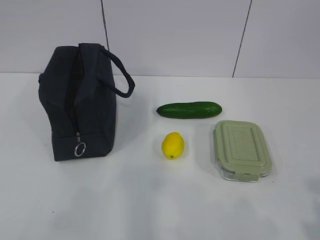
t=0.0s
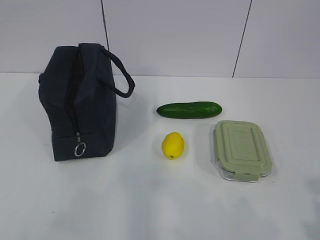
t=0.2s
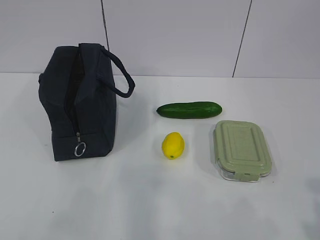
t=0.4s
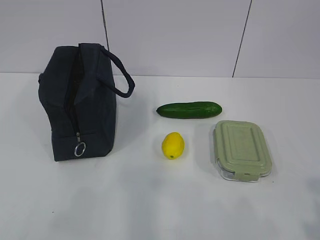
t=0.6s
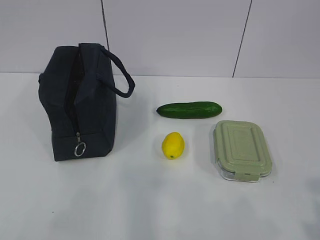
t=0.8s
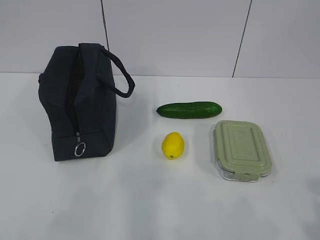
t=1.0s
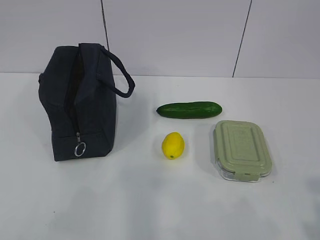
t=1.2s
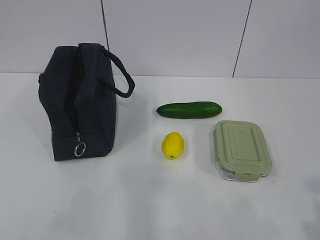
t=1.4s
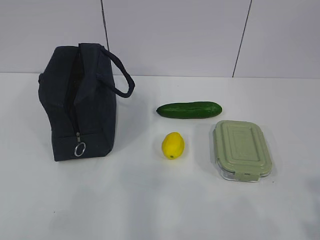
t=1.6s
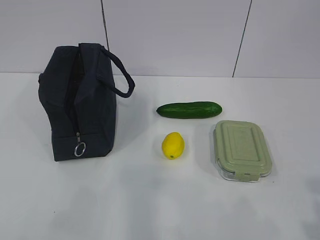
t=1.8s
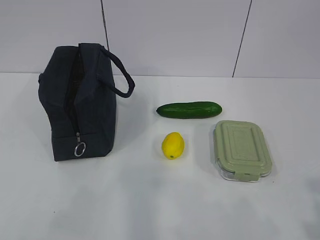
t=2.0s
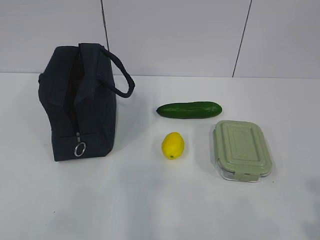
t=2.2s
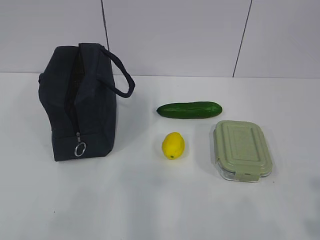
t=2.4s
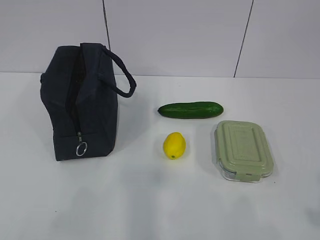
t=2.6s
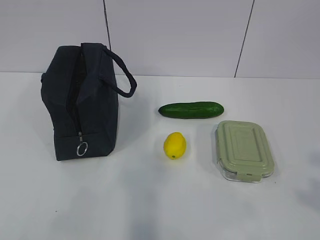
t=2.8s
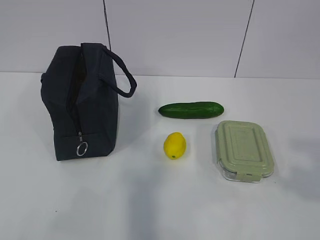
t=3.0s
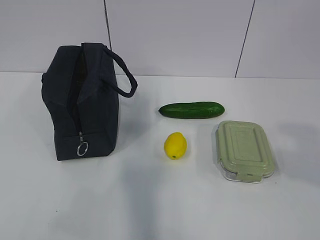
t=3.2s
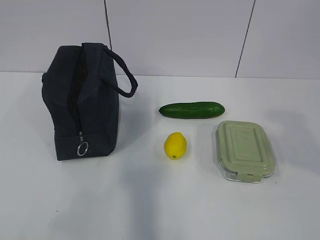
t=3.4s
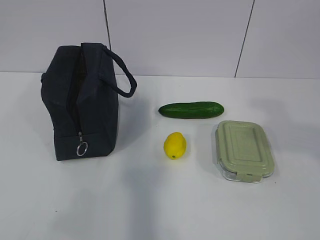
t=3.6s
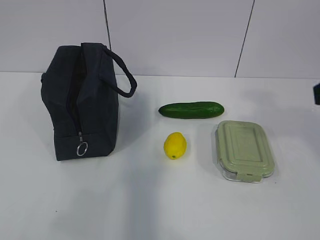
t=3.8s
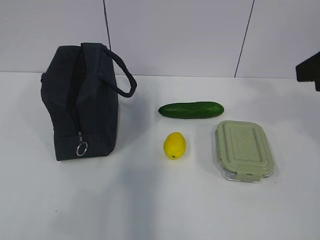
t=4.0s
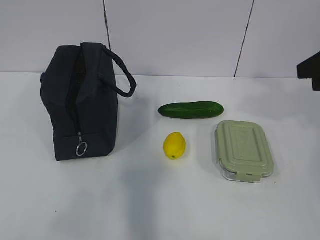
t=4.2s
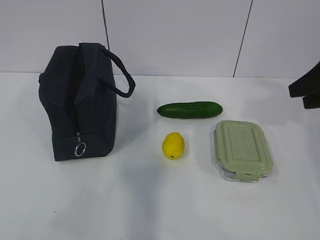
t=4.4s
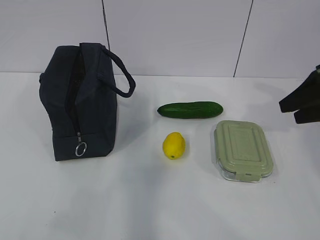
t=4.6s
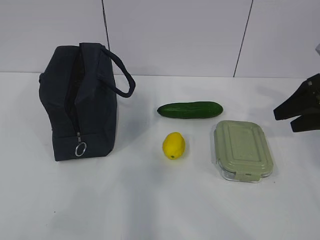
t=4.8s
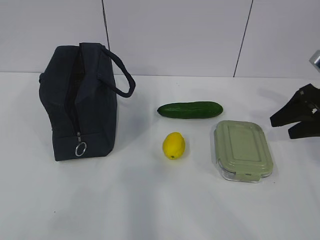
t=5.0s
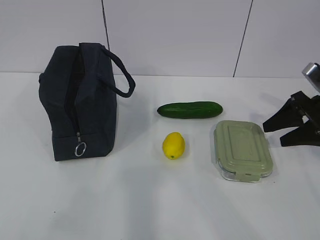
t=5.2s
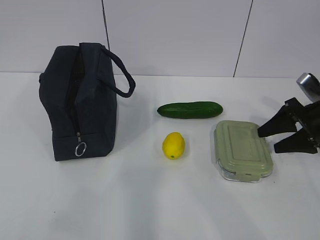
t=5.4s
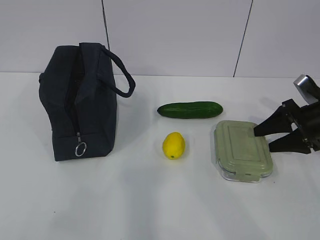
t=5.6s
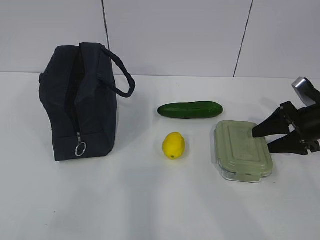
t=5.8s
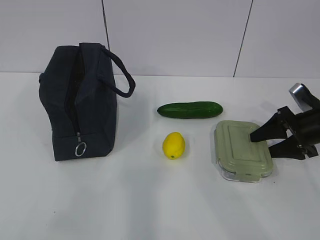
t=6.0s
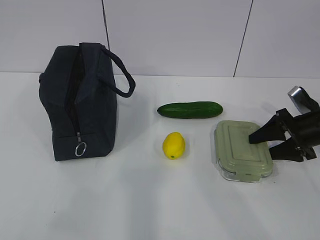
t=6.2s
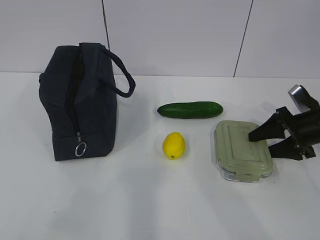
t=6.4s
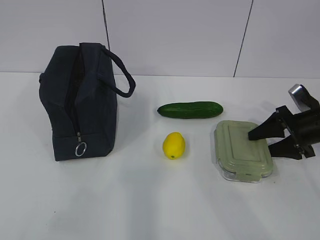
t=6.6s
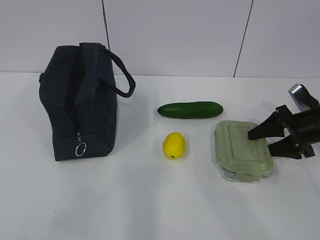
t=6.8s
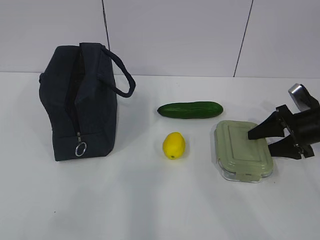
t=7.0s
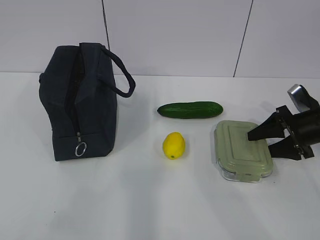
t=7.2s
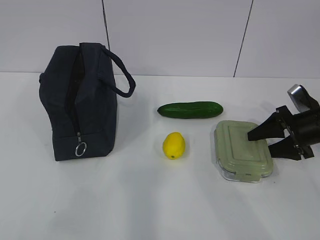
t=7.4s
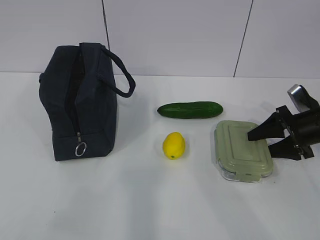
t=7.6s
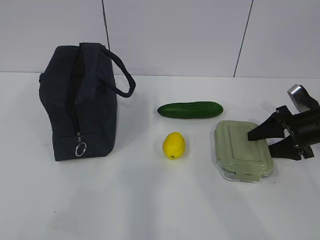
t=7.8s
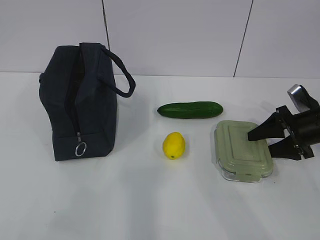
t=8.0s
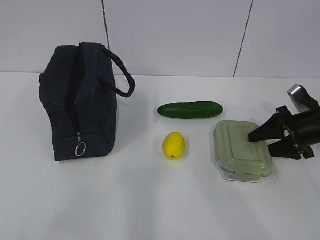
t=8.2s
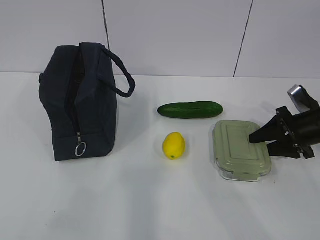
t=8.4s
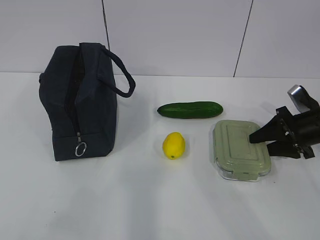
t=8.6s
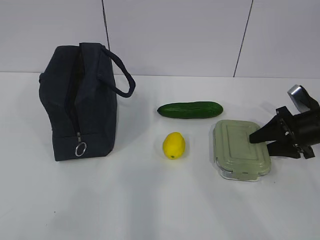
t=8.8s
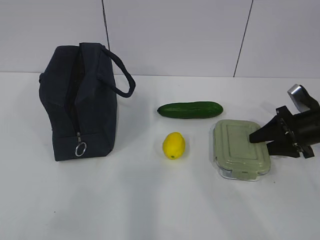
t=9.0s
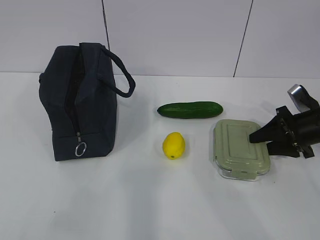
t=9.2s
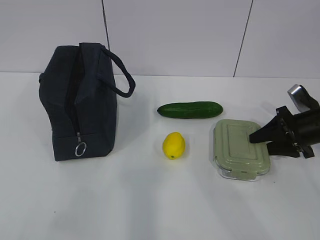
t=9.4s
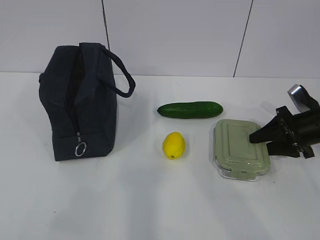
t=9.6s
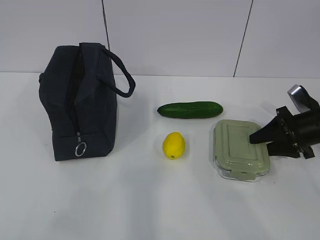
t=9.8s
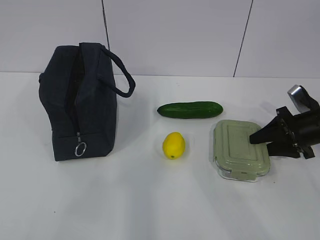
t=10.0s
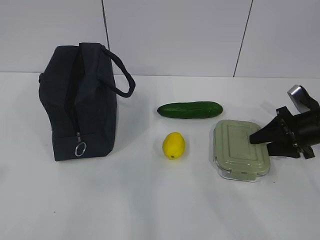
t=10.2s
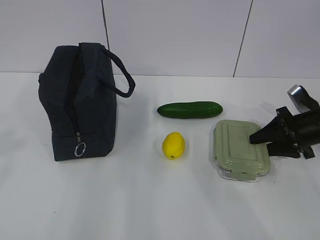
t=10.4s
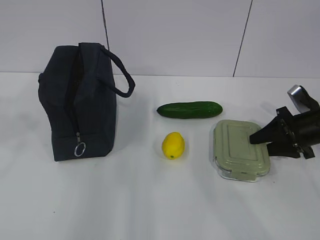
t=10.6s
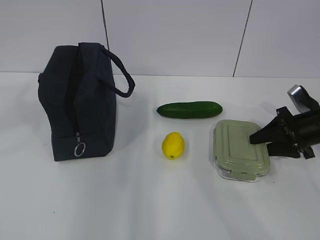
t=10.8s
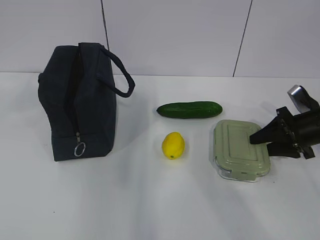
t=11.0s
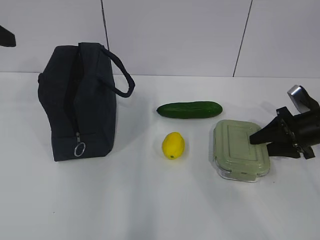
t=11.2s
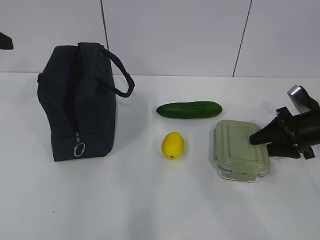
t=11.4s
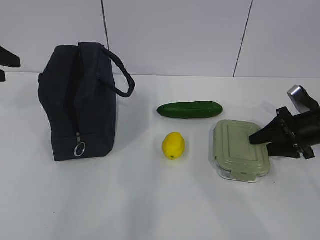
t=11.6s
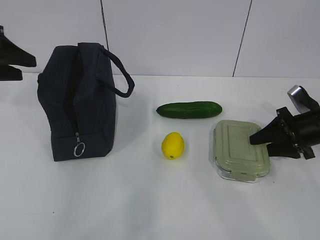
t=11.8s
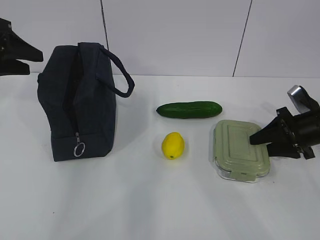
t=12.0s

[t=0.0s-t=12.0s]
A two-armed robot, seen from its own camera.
Step, t=0.0s to t=8.8s: Grasp the box with the right gripper.
t=1.6s to t=3.0s: The right gripper shifts some 5 cm upward.
t=3.0s to t=4.4s: The right gripper goes some 25 cm forward.
t=4.4s to t=6.0s: The right gripper heads downward and forward, covering about 20 cm.
t=6.0s to t=9.0s: Both grippers stay put.
t=10.4s to t=12.0s: The left gripper shifts roughly 30 cm forward.

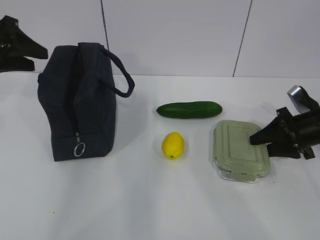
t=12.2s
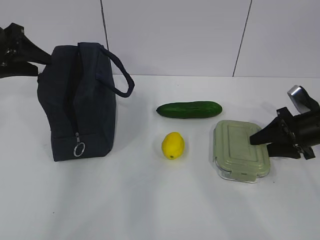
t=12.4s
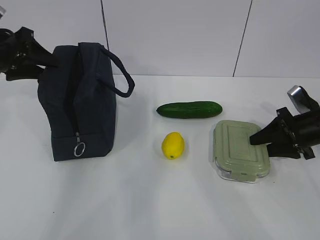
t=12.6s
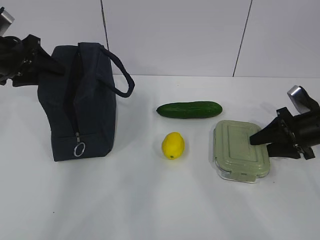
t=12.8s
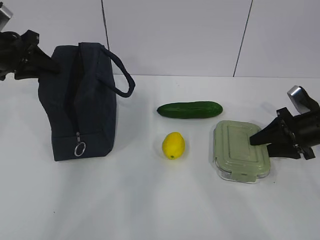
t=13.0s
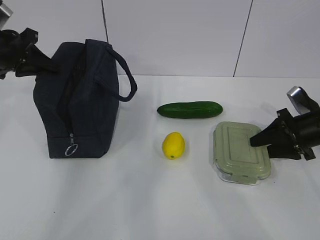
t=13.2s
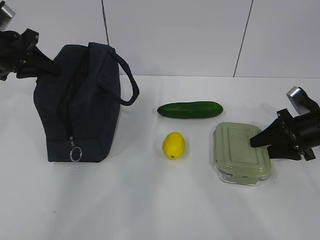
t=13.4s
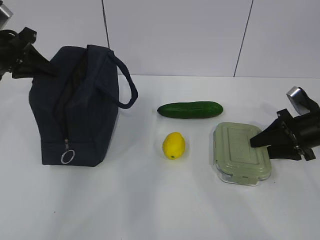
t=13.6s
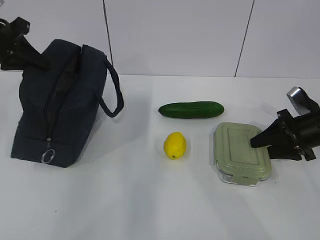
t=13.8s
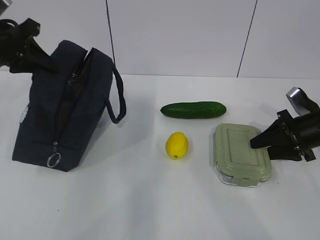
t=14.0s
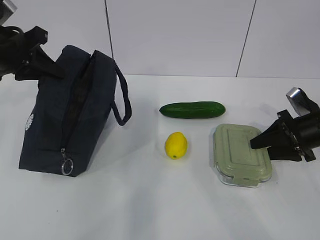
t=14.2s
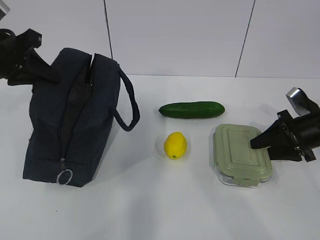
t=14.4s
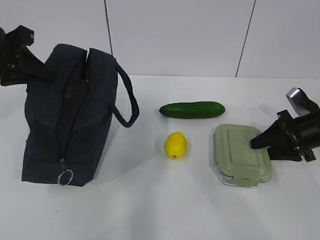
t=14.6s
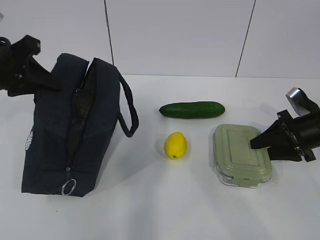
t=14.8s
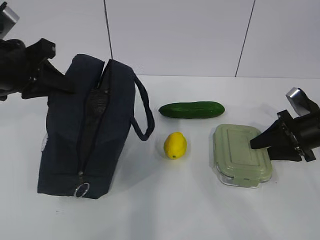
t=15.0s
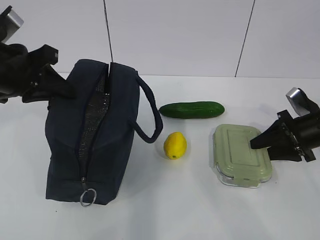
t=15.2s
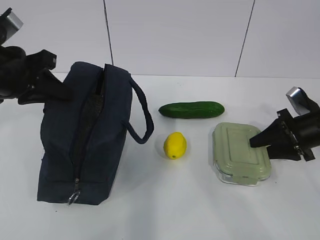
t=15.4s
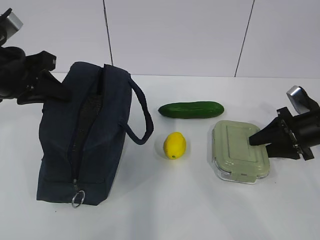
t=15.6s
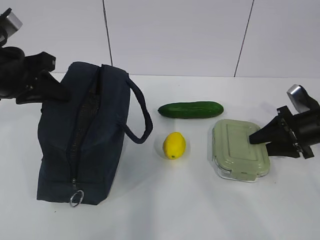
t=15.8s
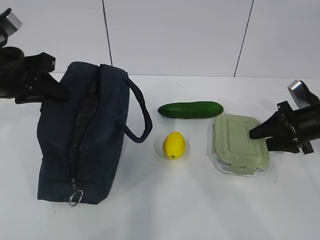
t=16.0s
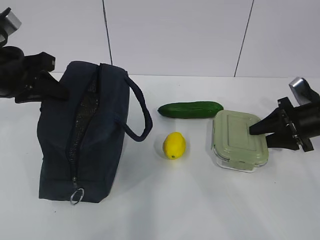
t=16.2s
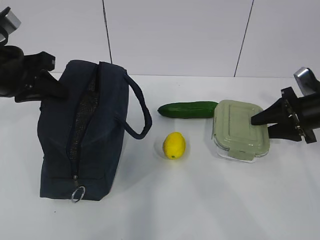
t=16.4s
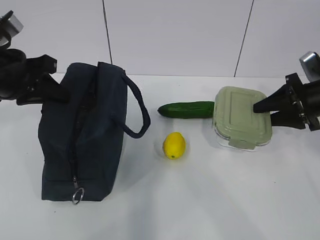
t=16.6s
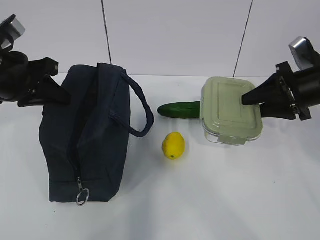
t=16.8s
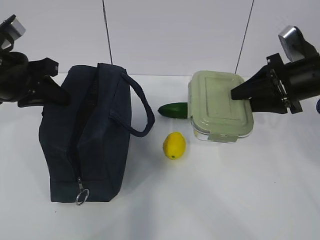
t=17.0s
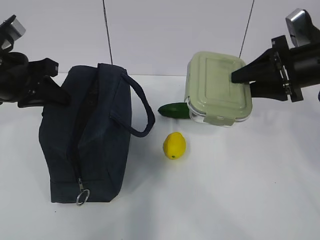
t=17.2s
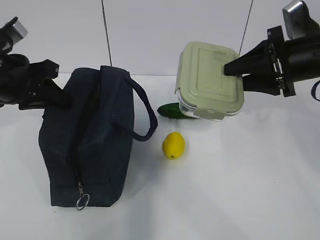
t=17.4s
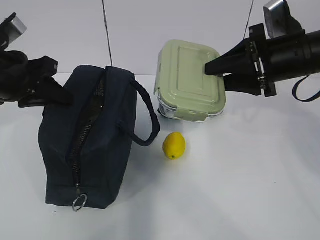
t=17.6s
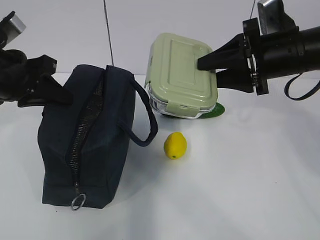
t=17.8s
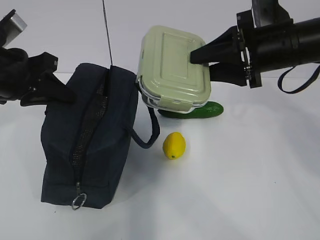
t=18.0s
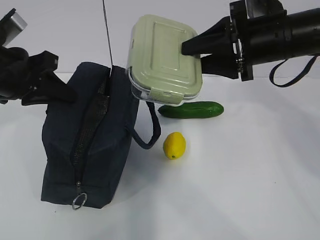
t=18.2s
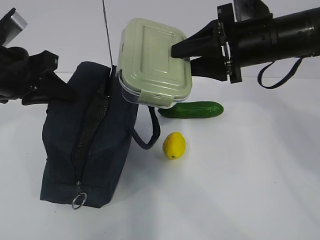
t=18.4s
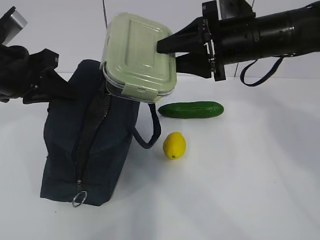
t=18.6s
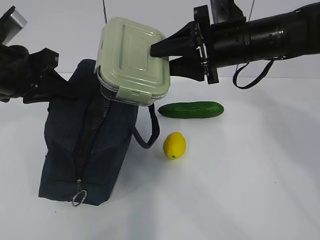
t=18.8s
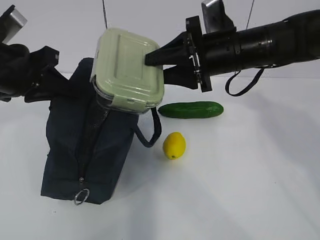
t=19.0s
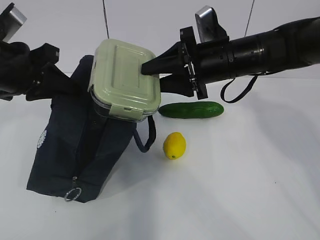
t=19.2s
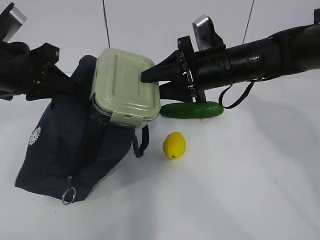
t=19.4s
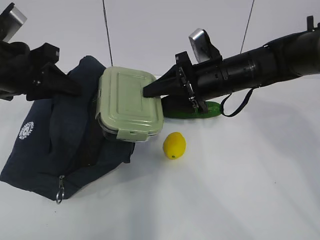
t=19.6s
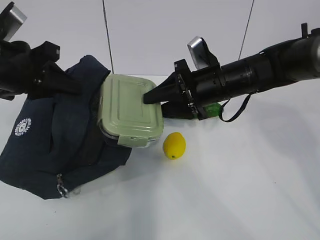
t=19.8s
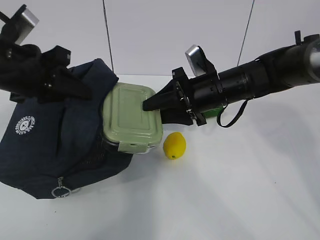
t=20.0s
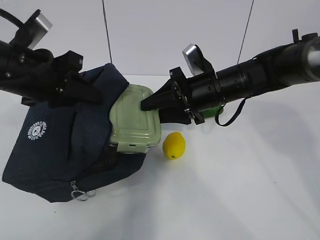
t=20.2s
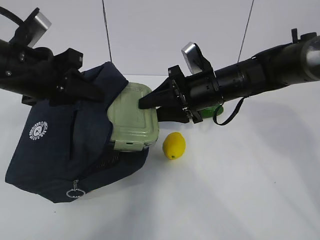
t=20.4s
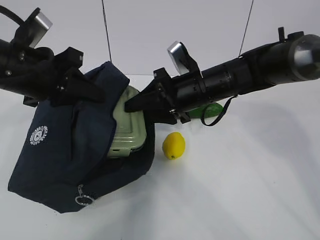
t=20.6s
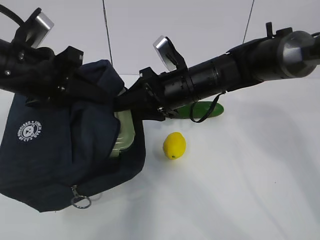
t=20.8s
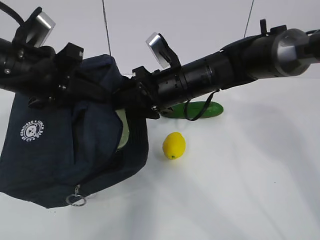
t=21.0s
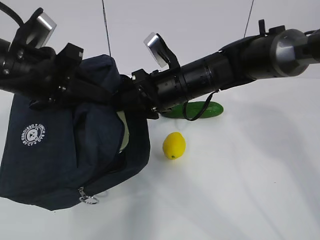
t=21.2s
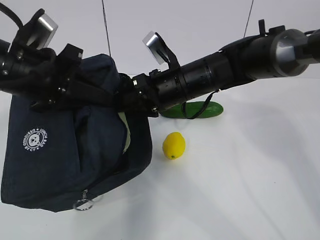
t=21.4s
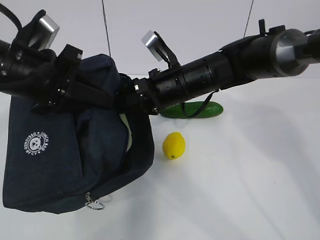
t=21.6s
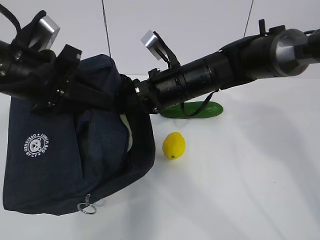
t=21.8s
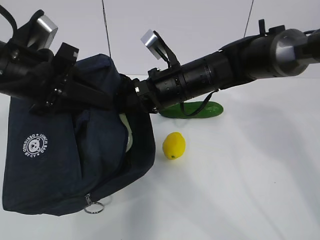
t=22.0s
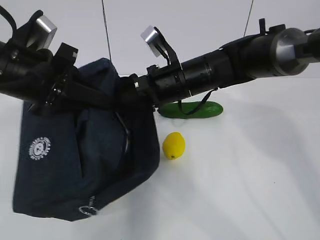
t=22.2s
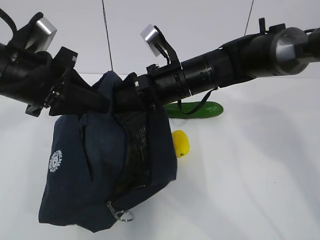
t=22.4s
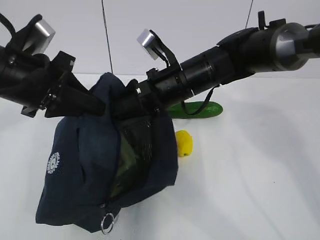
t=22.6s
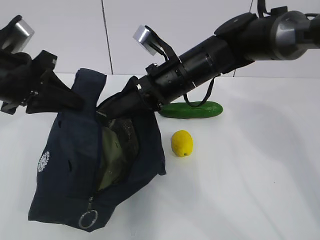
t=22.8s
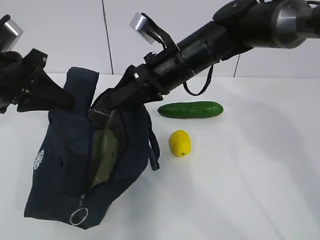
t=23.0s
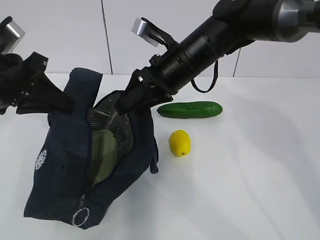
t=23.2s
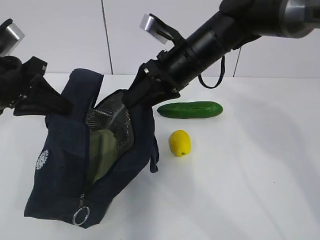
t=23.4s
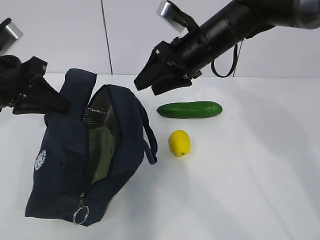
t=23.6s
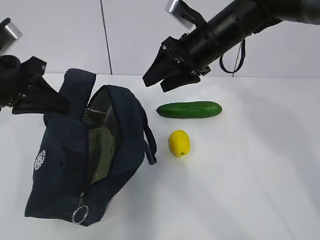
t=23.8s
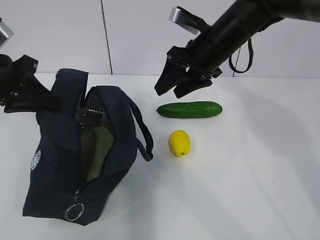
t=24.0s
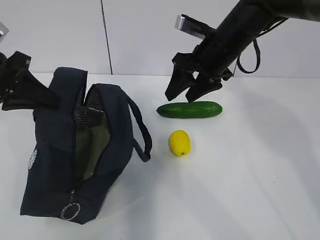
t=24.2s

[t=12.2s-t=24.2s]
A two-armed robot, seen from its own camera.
Step, t=13.4s to t=22.8s: Place the box into the package with the right gripper.
t=12.2s to t=13.8s: The left gripper closes up.
t=13.8s to t=15.2s: The left gripper travels backward and to the right by approximately 10 cm.
t=15.2s to t=16.6s: The right gripper is displaced upward by some 5 cm.
t=16.6s to t=18.2s: The right gripper shifts roughly 20 cm to the left and upward.
t=18.2s to t=19.8s: The right gripper shifts about 10 cm downward and to the left.
t=19.8s to t=21.2s: The right gripper heads to the left, covering approximately 5 cm.
t=22.6s to t=24.2s: The left gripper travels to the left by approximately 5 cm, while the right gripper goes some 5 cm to the right.
